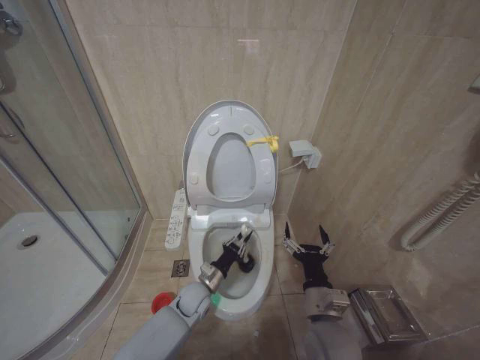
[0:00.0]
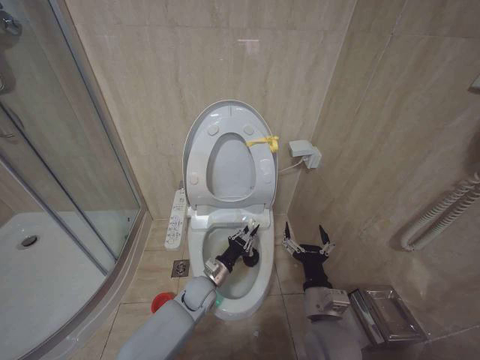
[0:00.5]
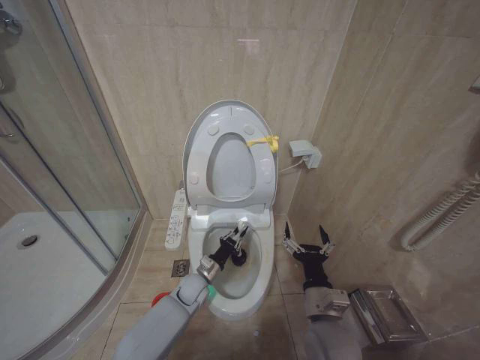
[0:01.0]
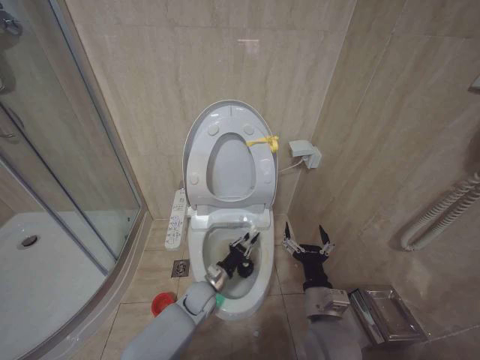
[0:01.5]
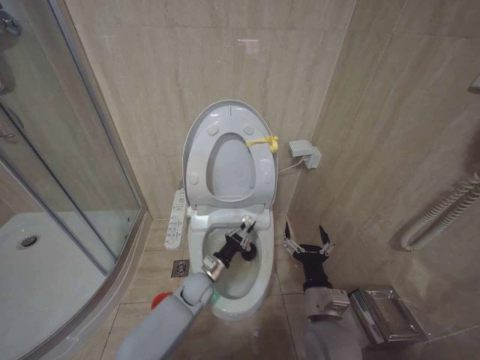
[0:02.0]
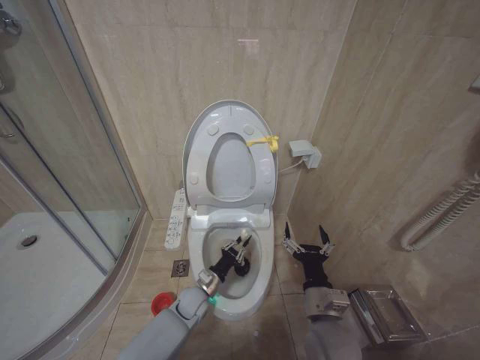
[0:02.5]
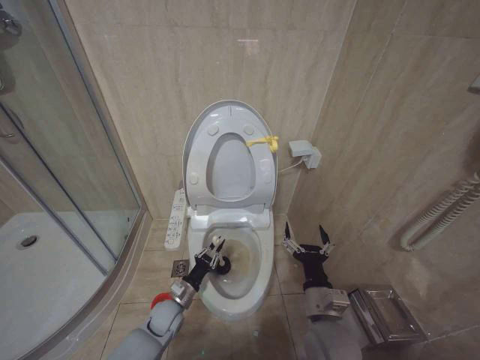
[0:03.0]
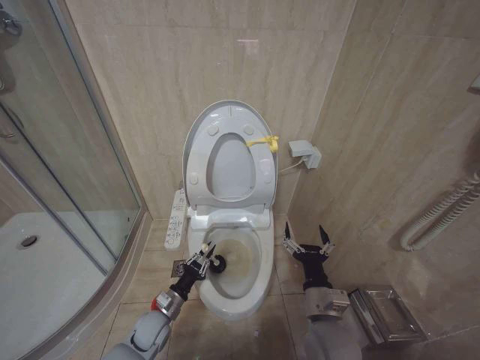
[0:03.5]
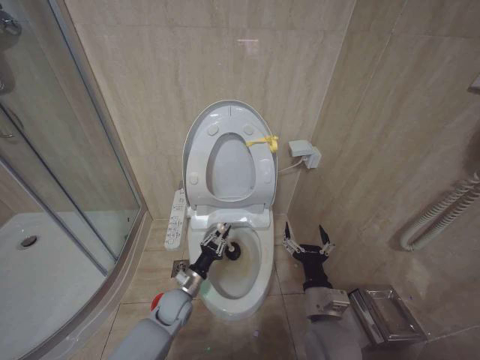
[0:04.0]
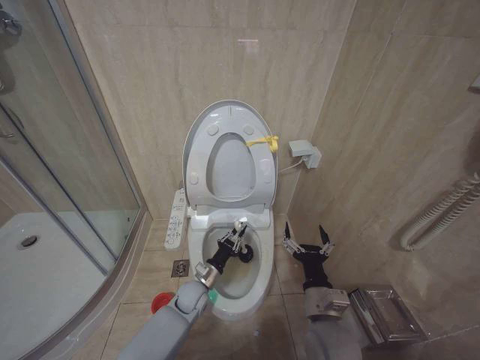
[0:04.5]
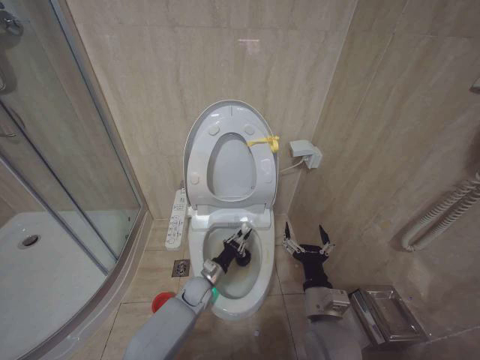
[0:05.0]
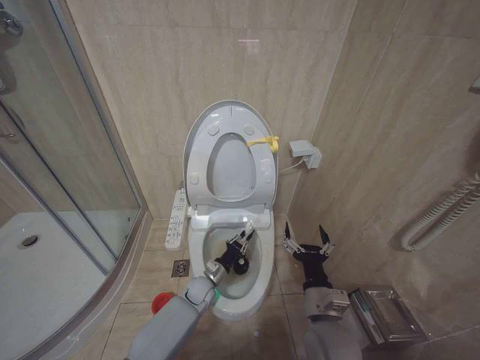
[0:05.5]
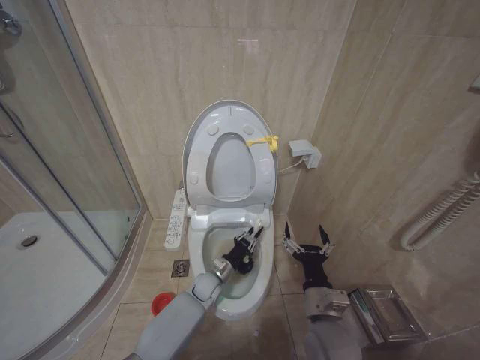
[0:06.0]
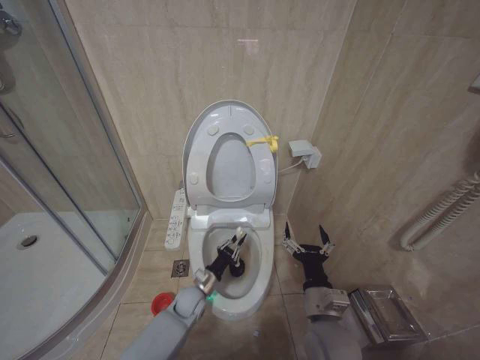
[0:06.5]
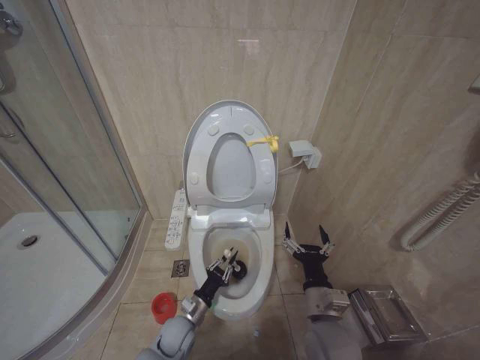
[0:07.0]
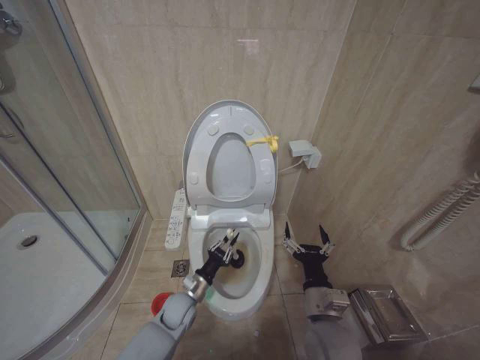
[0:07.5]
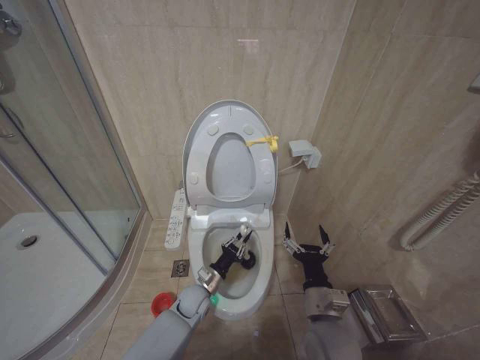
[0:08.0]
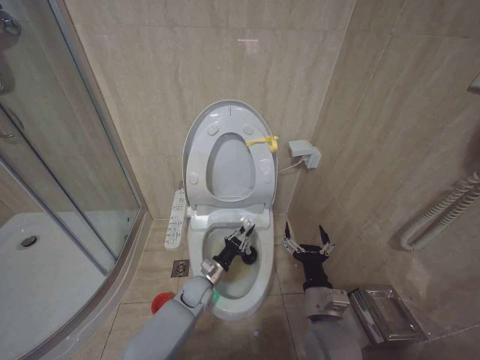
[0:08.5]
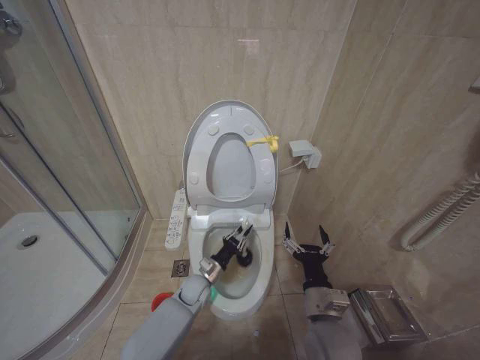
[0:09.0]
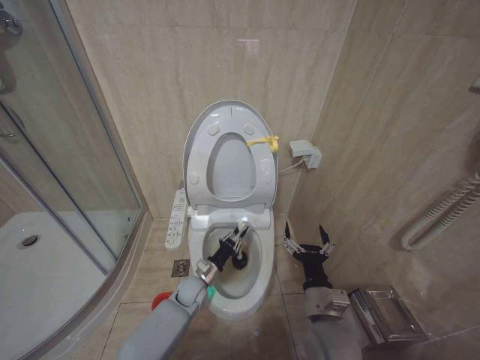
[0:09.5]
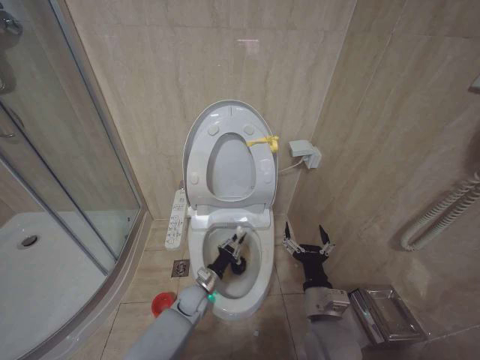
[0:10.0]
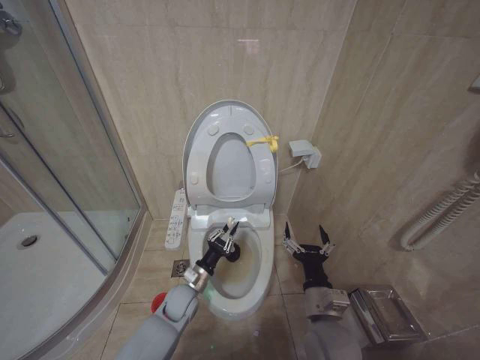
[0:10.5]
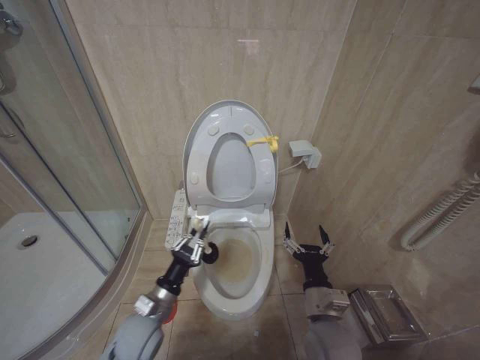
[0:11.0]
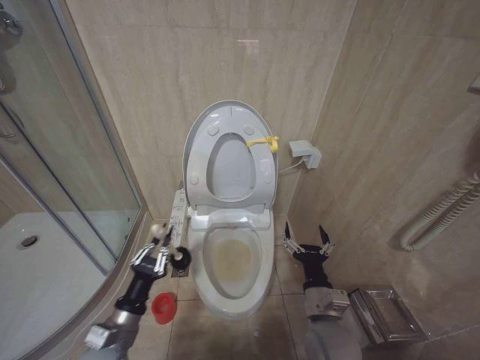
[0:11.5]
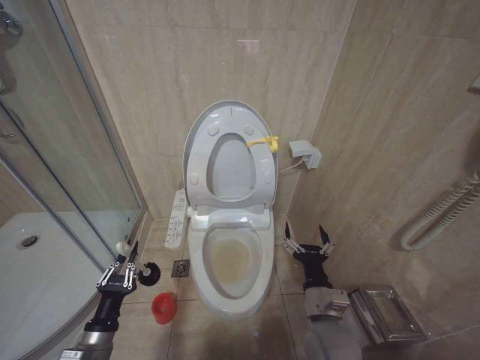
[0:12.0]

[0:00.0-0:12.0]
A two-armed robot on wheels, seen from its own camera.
Task of the whole recording: Open the toilet lid, clean the toilet bowl with a toilet brush, close the toilet lid, and flush.
0:00.0 to 0:02.0: The grippers make only small movements.
0:02.0 to 0:04.0: The left gripper shifts about 10 cm to the left and backward.
0:04.0 to 0:06.0: The left gripper heads to the right and forward, covering approximately 15 cm.
0:10.0 to 0:12.0: The left gripper travels backward, to the left and upward by roughly 30 cm.

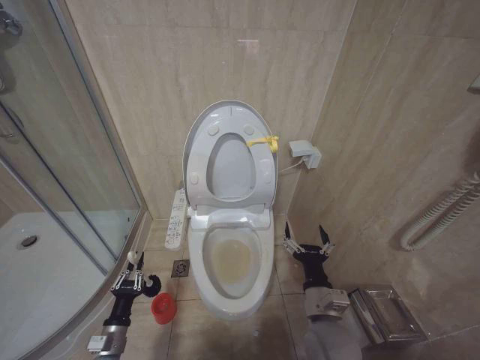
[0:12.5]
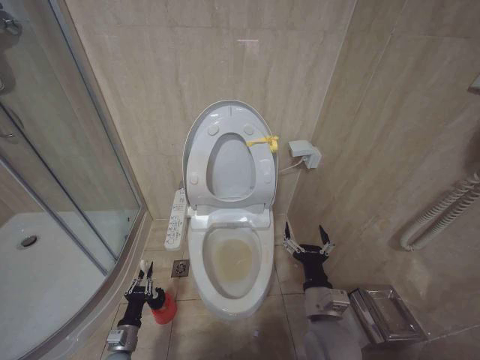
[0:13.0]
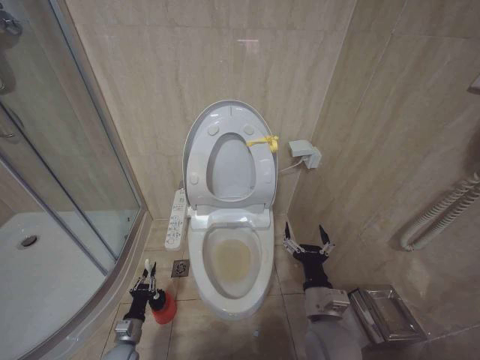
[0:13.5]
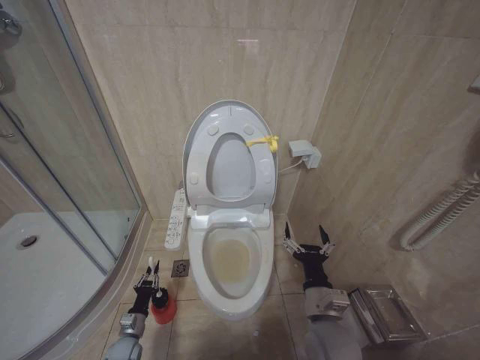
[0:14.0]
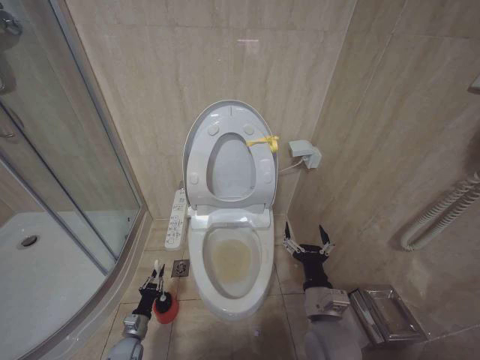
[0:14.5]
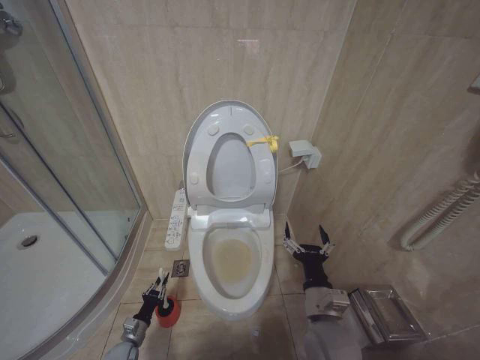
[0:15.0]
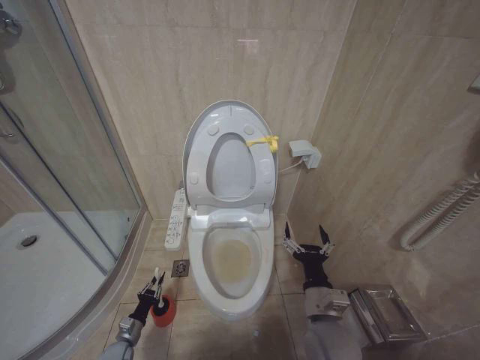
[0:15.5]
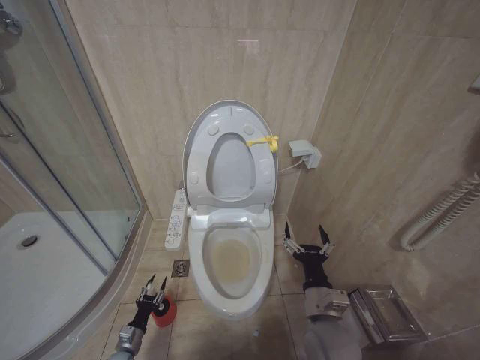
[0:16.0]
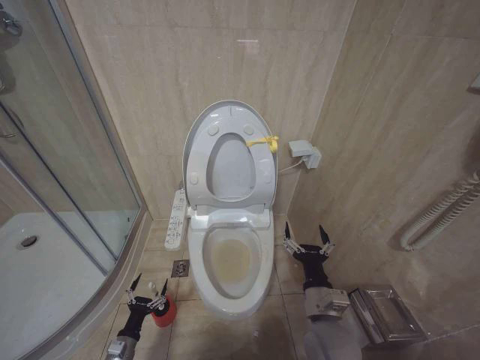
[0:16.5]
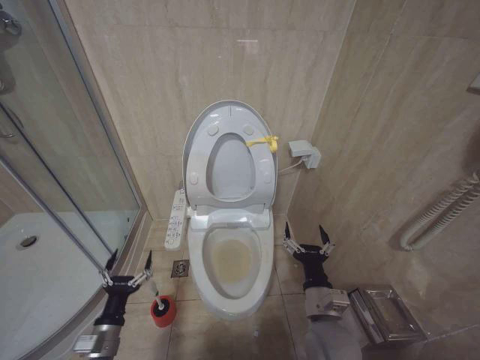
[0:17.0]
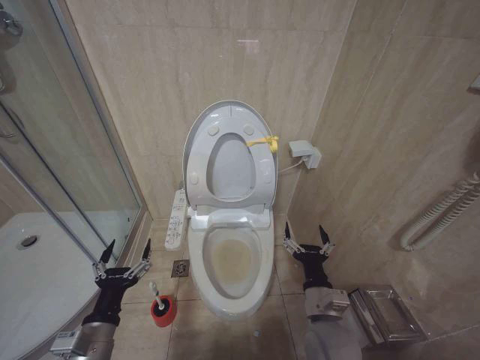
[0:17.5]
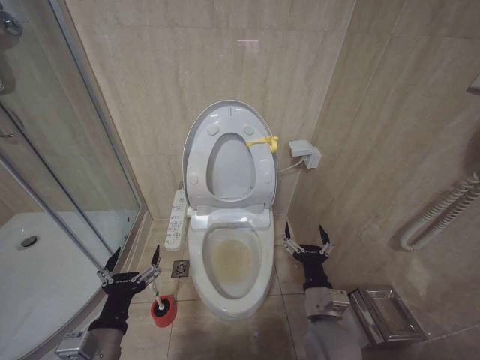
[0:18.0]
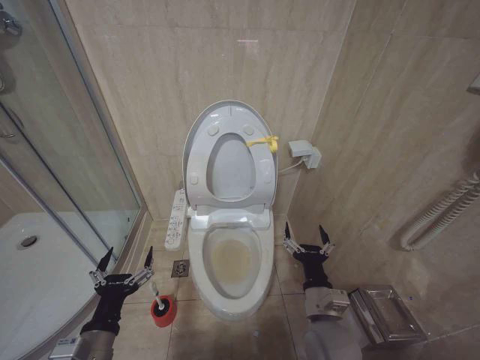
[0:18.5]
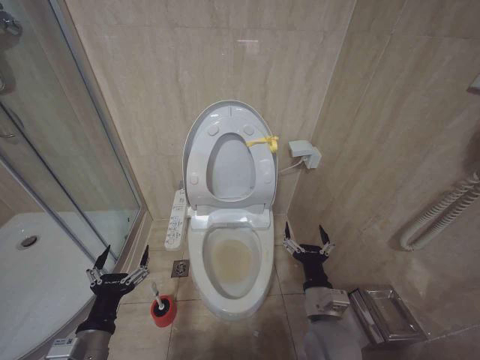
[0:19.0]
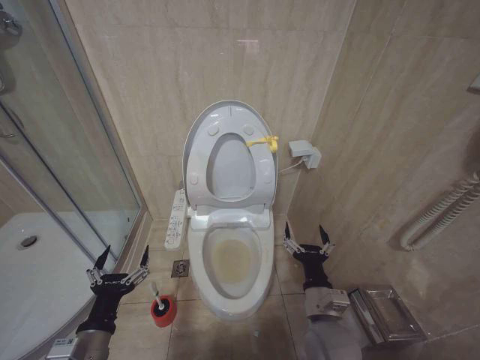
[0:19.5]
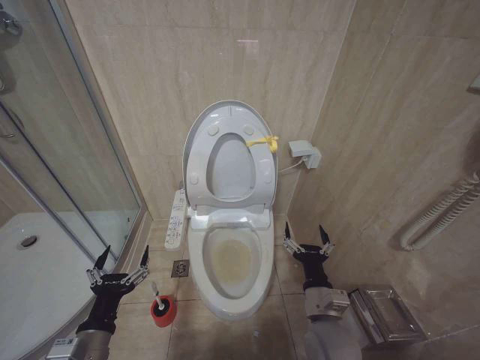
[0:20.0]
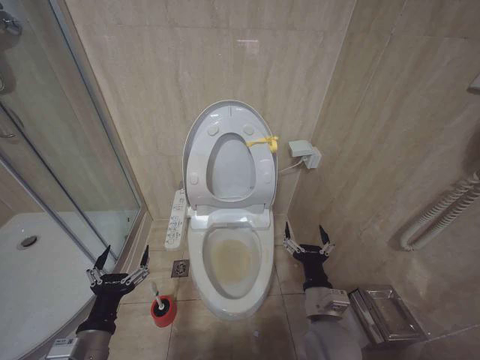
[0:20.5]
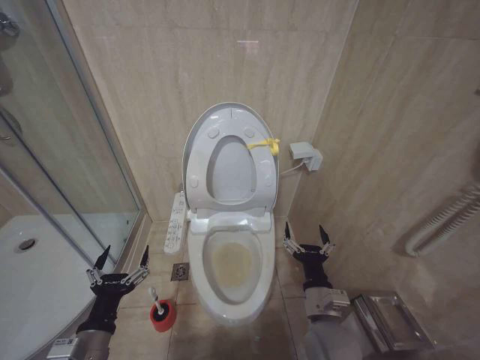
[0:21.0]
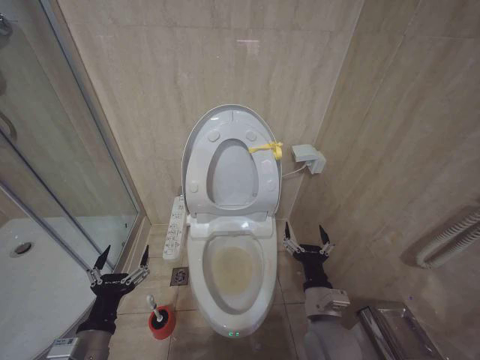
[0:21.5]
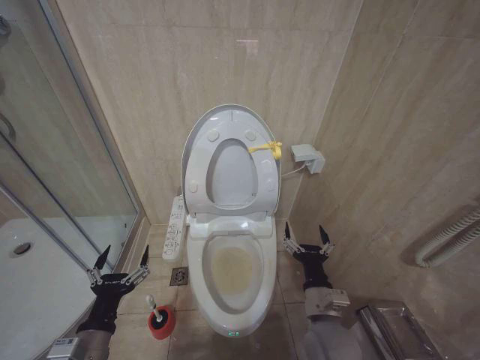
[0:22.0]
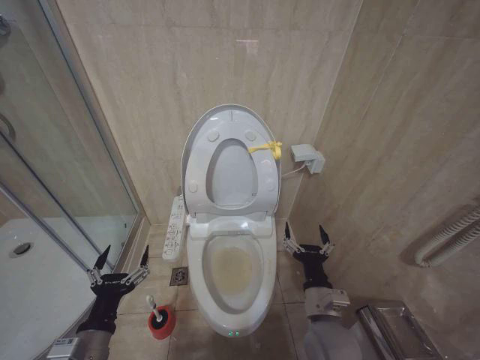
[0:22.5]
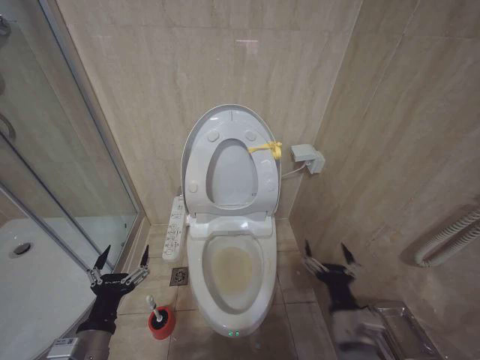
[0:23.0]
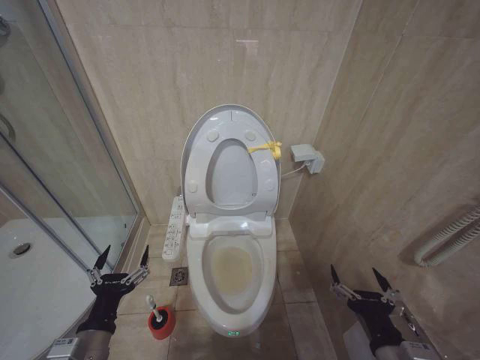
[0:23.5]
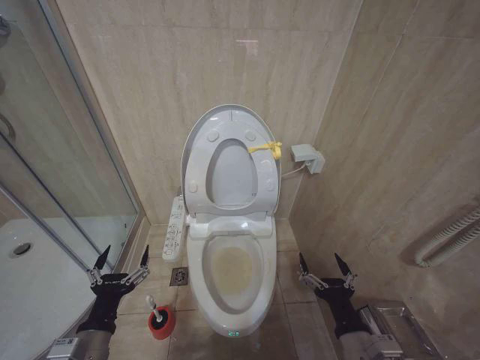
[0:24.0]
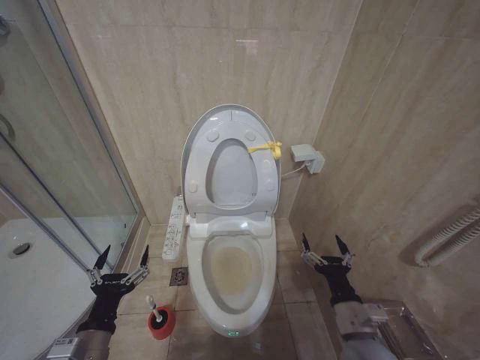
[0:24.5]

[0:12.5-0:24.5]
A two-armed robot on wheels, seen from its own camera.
Task of the whole recording: Open the toilet lid, clean the toilet bowl with a toilet brush, close the toilet lid, and flush.
0:12.5 to 0:14.5: The left gripper heads downward and forward, covering roughly 15 cm.
0:14.5 to 0:16.5: The left gripper heads backward, covering roughly 5 cm, and opens its fingers.
0:16.5 to 0:18.5: The left gripper shifts about 30 cm upward.
0:18.5 to 0:22.5: Both grippers stay put.
0:22.5 to 0:24.5: The right gripper is displaced to the right by about 5 cm, and moves roughly 10 cm backward and comes back.

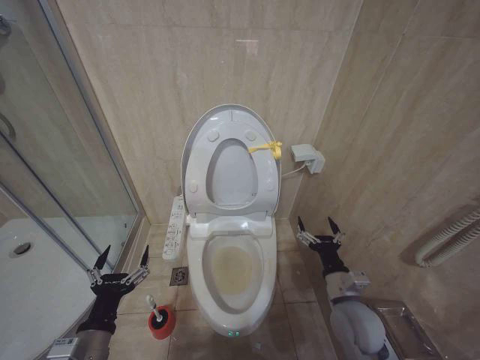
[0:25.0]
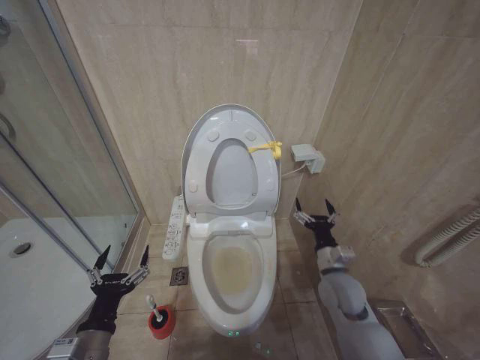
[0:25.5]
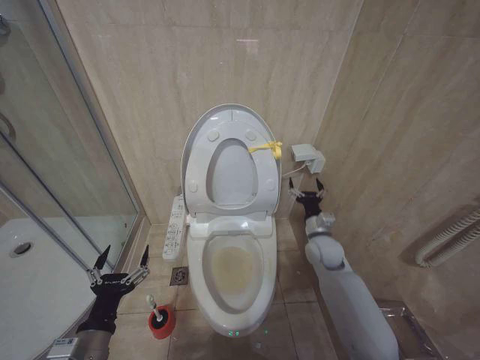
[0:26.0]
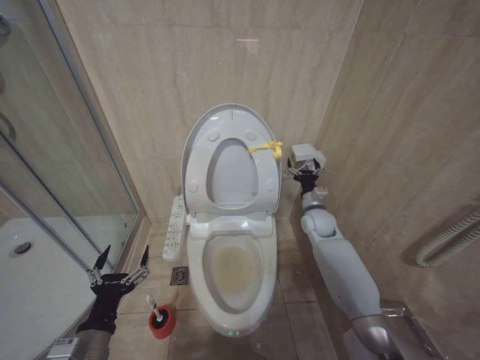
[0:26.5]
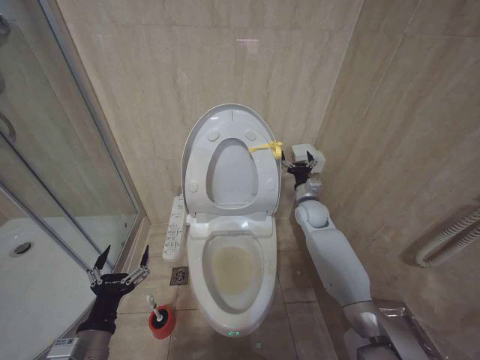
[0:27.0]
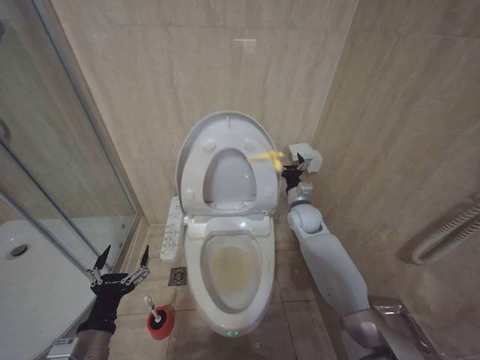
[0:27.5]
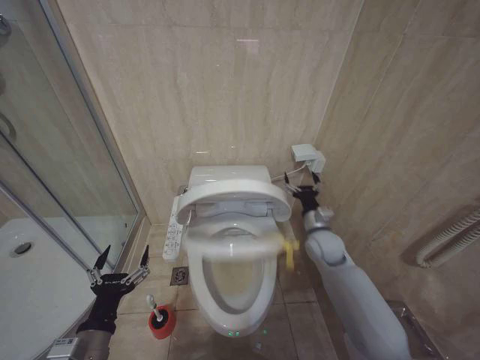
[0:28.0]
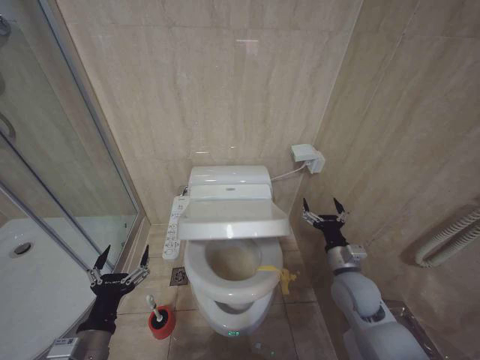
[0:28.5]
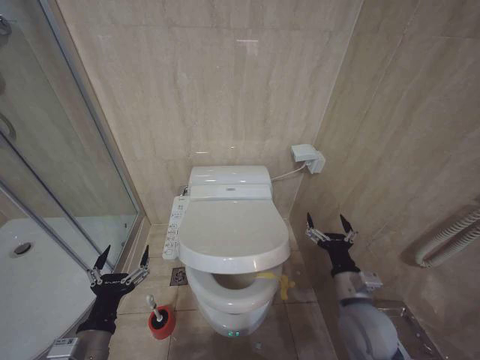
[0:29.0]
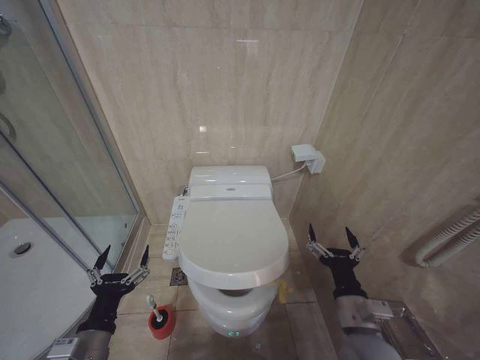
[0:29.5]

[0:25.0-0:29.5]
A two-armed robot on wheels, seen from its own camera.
Task of the whole recording: Open the toilet lid, clean the toilet bowl with a toilet brush, close the toilet lid, and flush.
0:25.0 to 0:27.0: The right gripper moves forward, roughly 30 cm.
0:27.0 to 0:29.5: The right gripper moves backward, some 35 cm.
